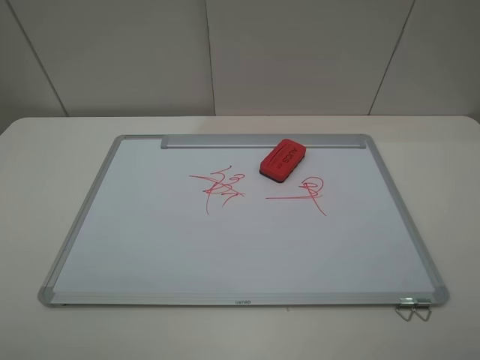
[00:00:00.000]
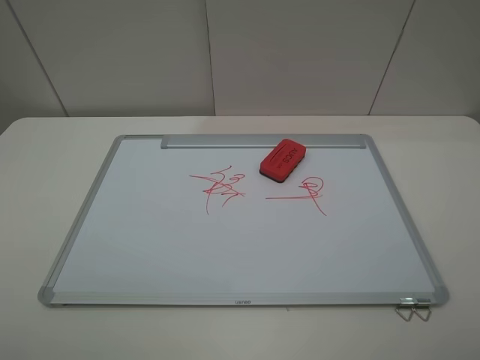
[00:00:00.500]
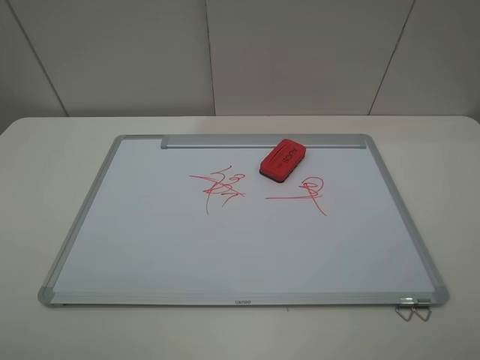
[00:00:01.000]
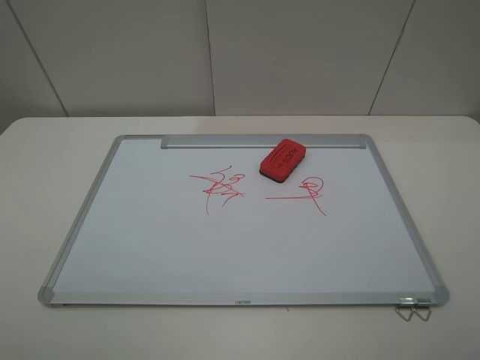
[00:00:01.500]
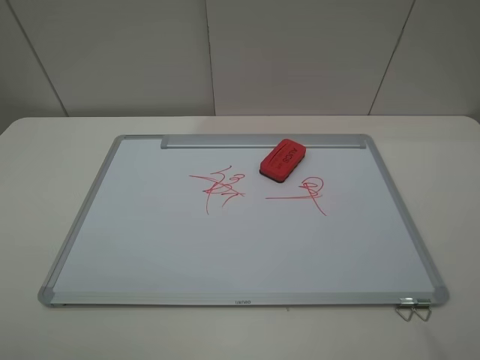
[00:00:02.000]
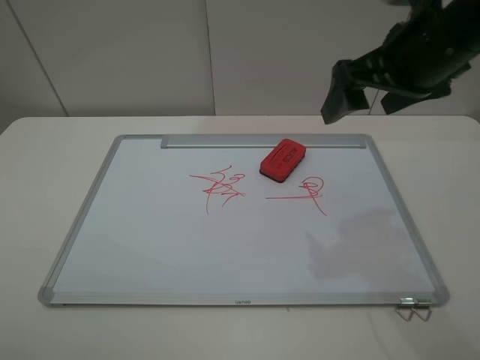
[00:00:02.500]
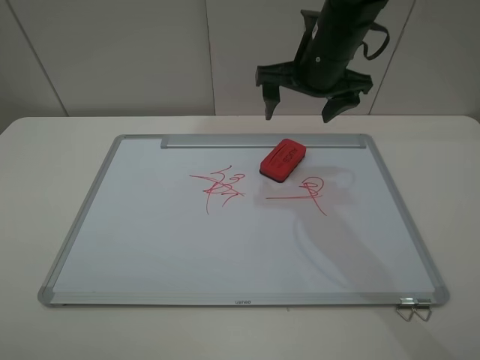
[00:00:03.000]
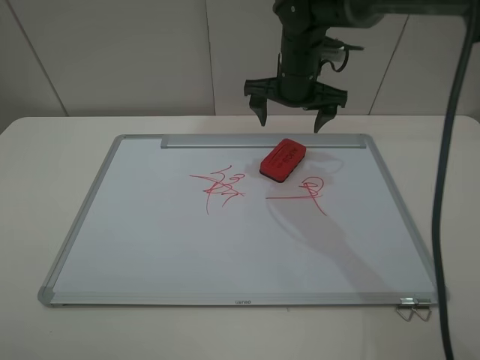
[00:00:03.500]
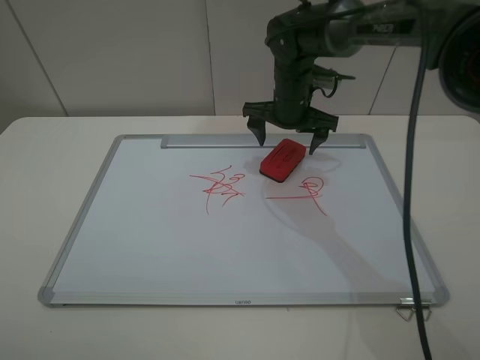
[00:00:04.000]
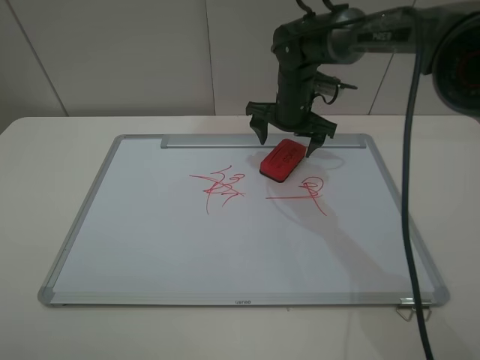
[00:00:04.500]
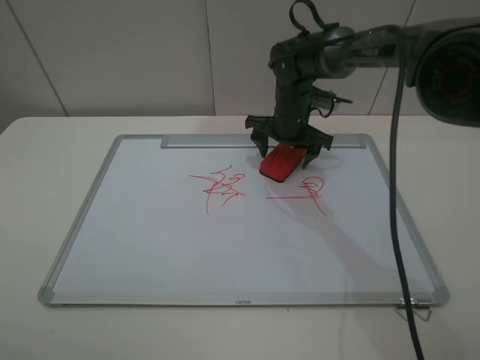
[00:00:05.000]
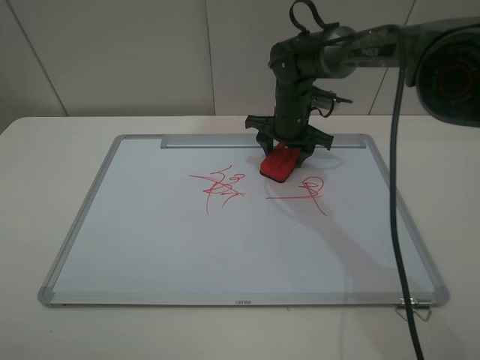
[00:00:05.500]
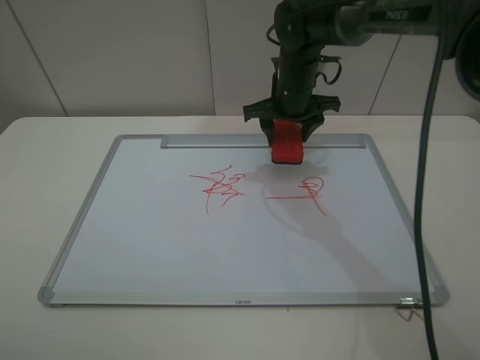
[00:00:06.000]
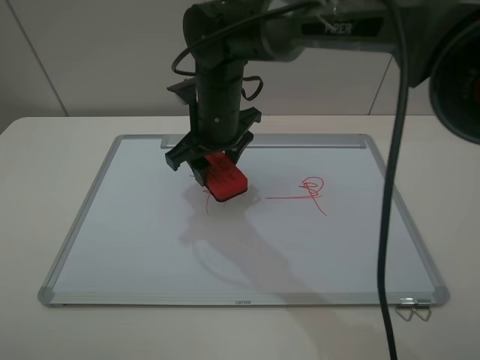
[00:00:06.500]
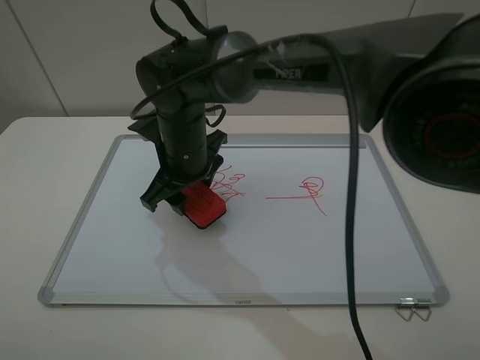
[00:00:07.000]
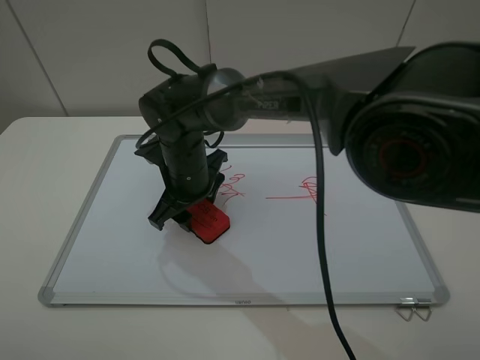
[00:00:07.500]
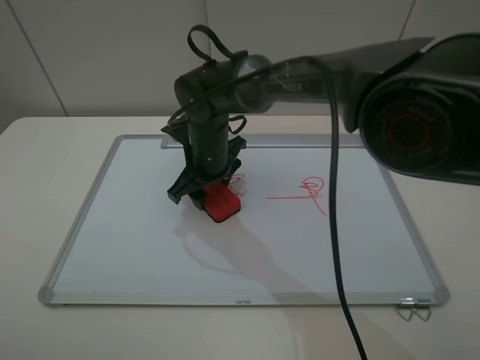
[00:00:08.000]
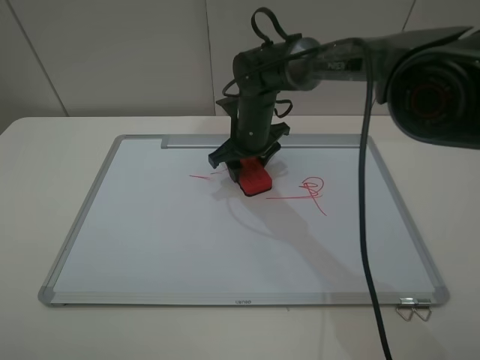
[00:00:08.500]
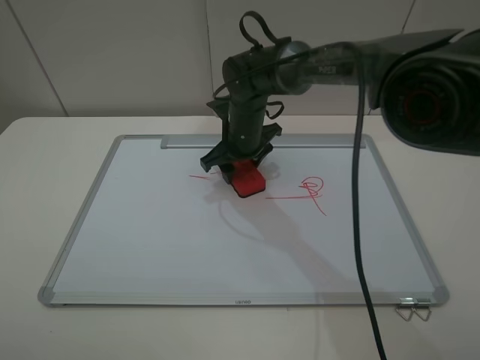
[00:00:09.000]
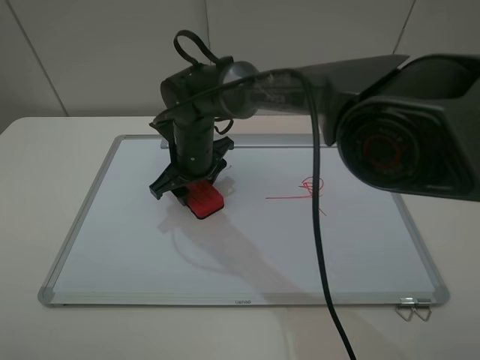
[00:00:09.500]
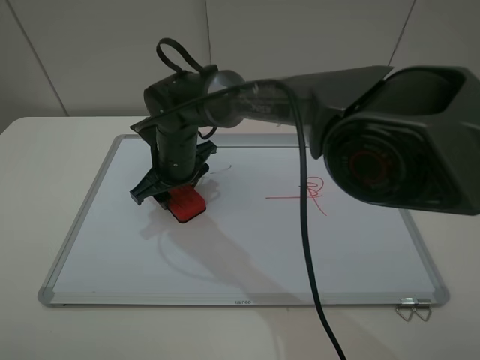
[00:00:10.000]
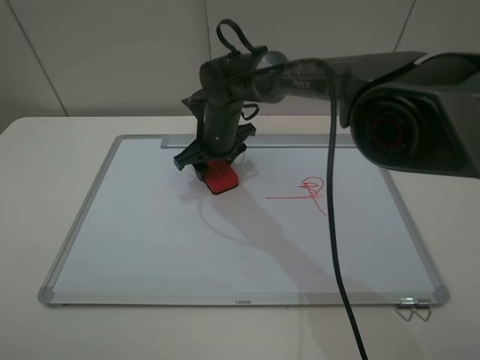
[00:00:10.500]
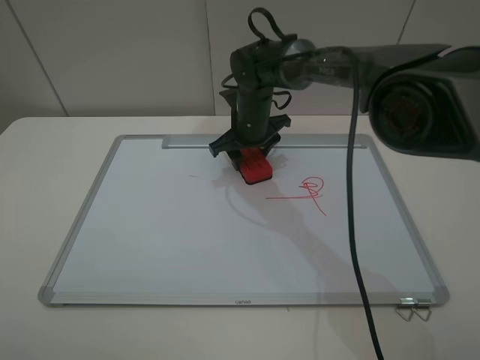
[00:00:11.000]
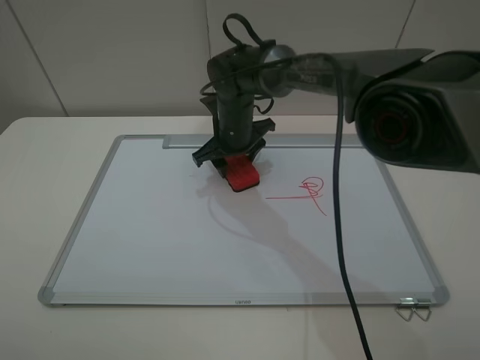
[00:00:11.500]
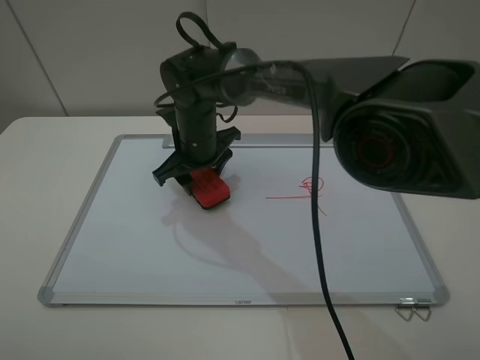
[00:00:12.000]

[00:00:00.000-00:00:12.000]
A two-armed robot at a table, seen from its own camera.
Step, 00:00:00.000 to 00:00:05.000: Grasp the eraser with the right gripper.
Step, 00:00:05.500 to 00:00:12.000: Grasp the eraser and wipe the blackboard with the right gripper.
00:00:02.000 to 00:00:04.000: The right gripper is displaced forward, downward and to the left by roughly 40 cm.
00:00:04.000 to 00:00:06.000: The right gripper closes its fingers.
00:00:06.000 to 00:00:08.000: The right gripper goes roughly 15 cm to the left, downward and backward.
00:00:08.000 to 00:00:10.000: The right gripper shifts approximately 5 cm to the left.
00:00:10.000 to 00:00:12.000: The right gripper moves about 10 cm to the right and comes back.

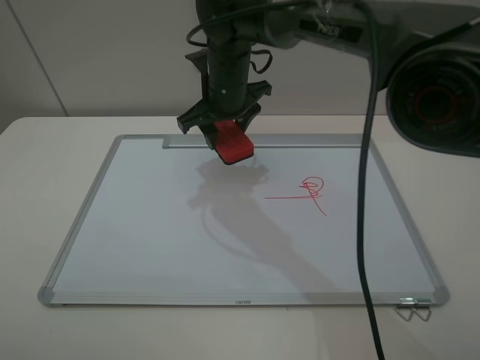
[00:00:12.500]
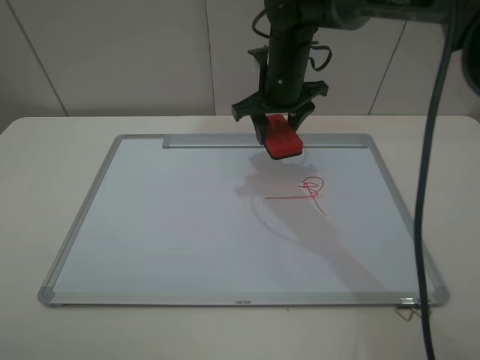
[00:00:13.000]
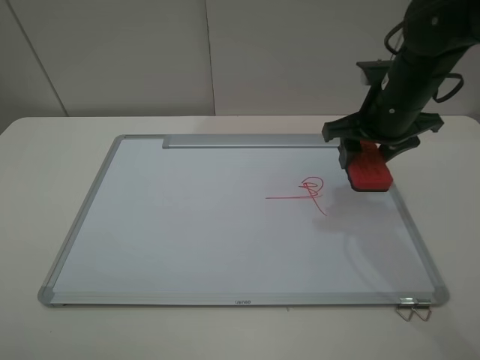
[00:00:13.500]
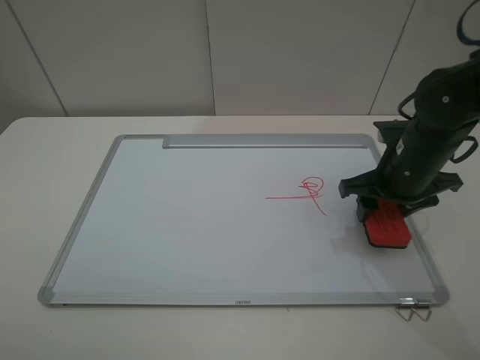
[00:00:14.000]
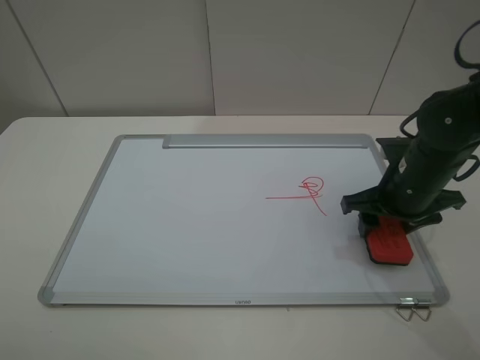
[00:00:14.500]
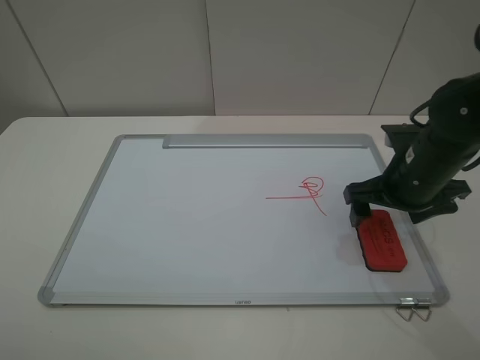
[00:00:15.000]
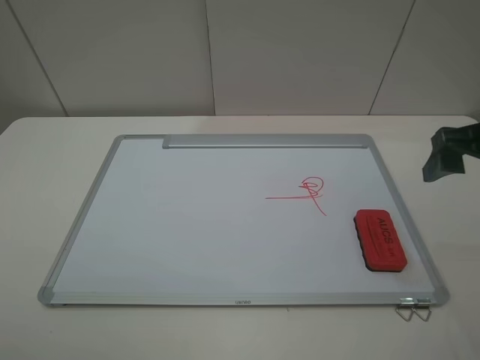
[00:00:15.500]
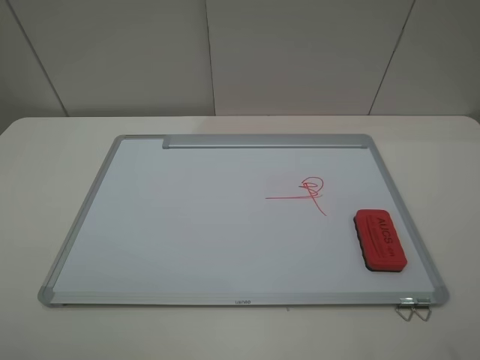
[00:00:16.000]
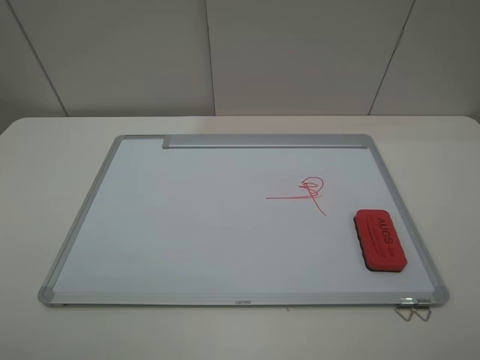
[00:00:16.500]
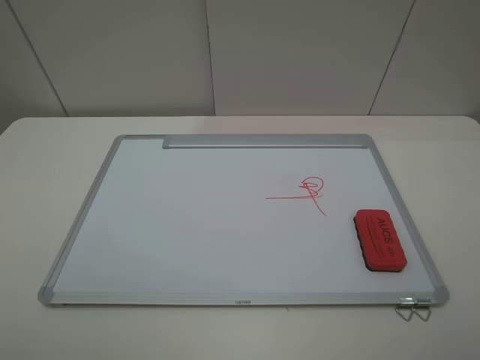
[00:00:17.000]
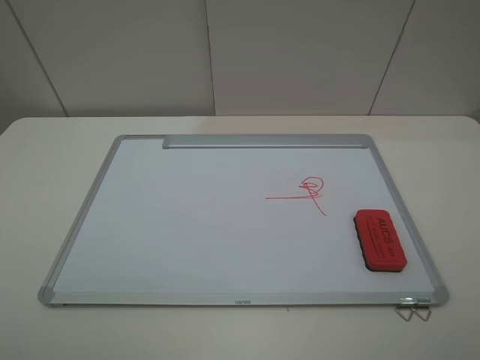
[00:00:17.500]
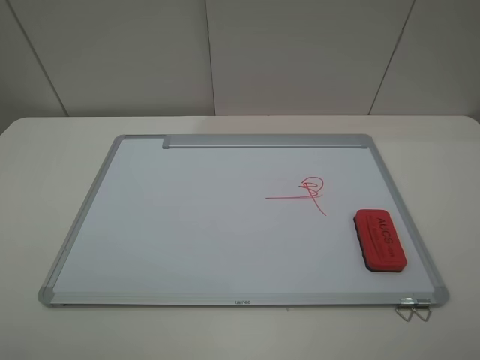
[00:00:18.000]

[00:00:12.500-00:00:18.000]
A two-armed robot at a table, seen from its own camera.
Step, 00:00:12.500 to 00:00:15.000: Place the eraser with the right gripper.
00:00:12.500 to 00:00:14.500: The right gripper goes about 30 cm to the right and backward.
00:00:14.500 to 00:00:16.000: The right gripper goes about 30 cm upward and backward, and opens its fingers.

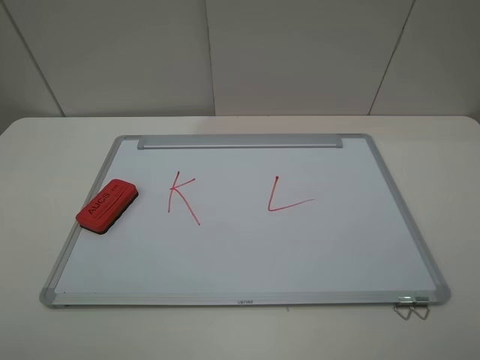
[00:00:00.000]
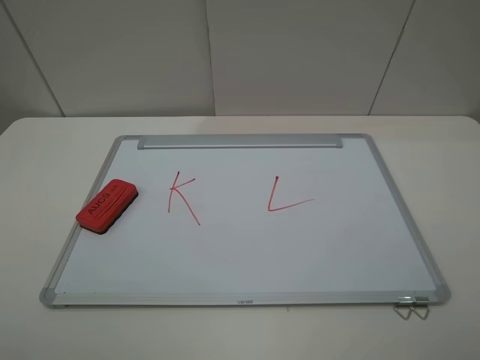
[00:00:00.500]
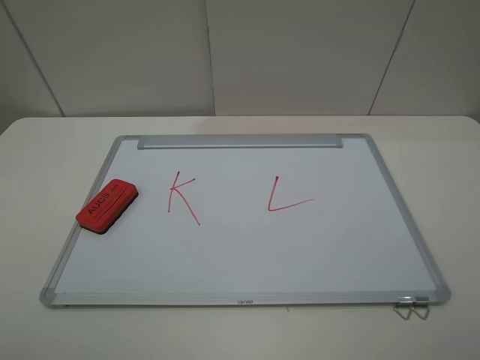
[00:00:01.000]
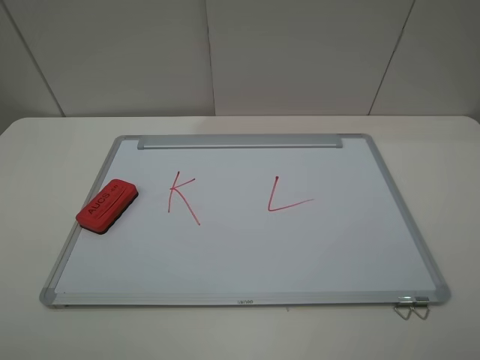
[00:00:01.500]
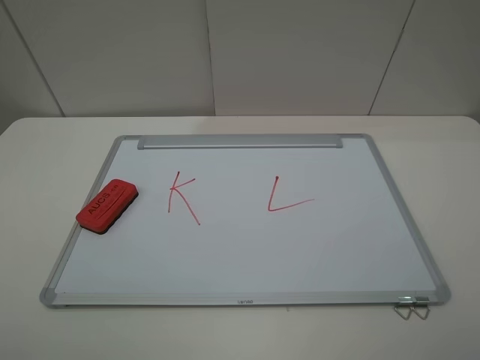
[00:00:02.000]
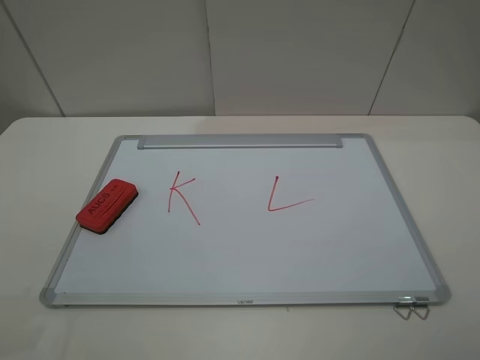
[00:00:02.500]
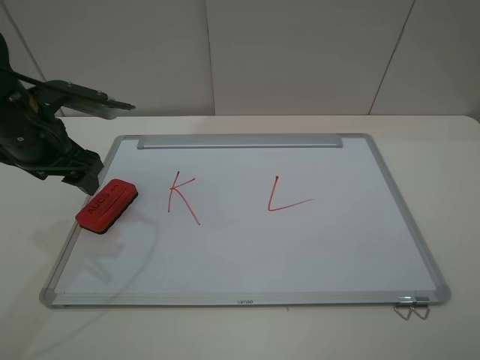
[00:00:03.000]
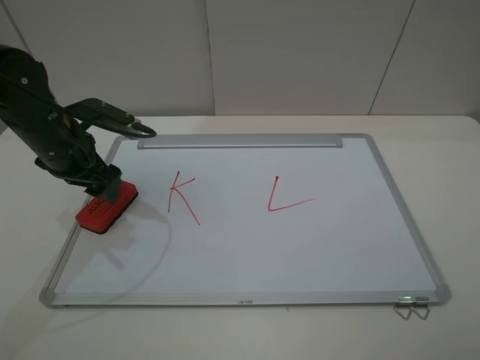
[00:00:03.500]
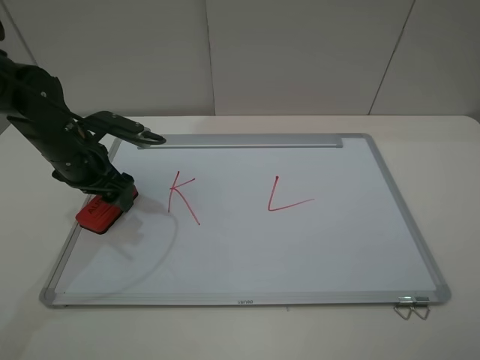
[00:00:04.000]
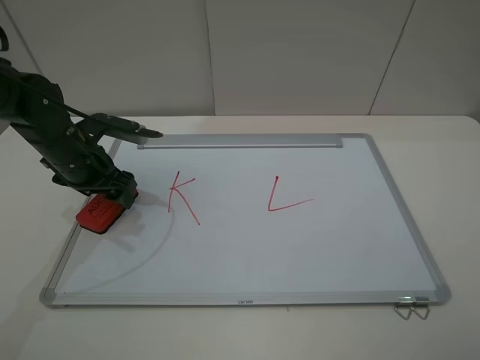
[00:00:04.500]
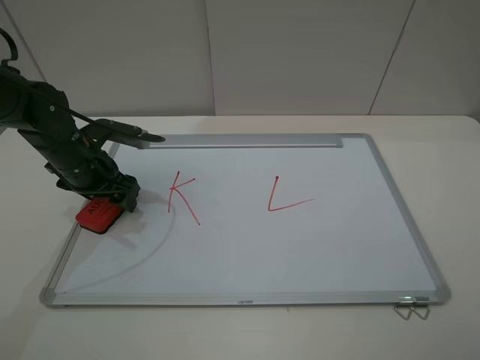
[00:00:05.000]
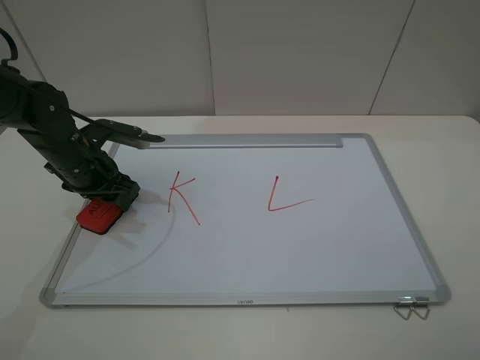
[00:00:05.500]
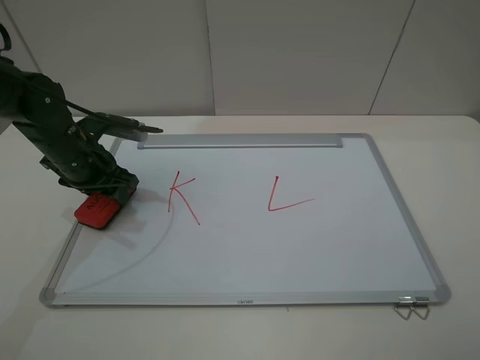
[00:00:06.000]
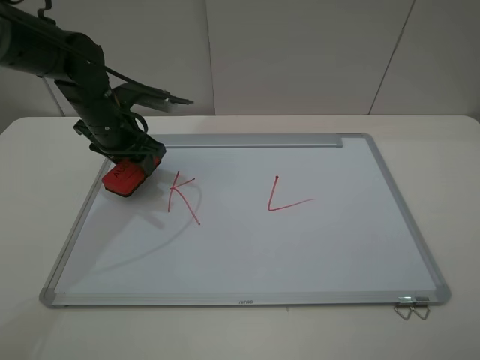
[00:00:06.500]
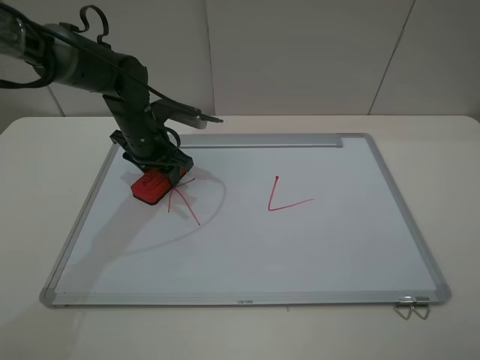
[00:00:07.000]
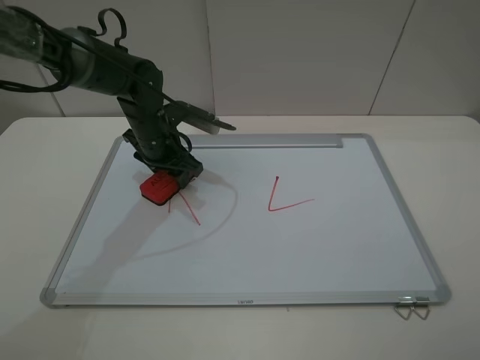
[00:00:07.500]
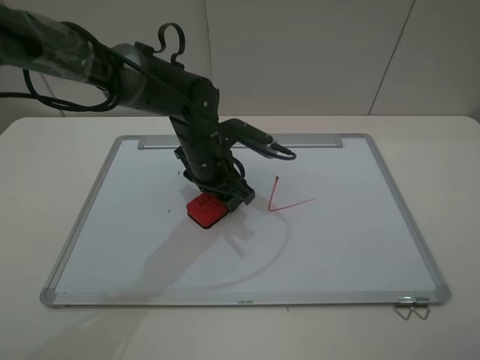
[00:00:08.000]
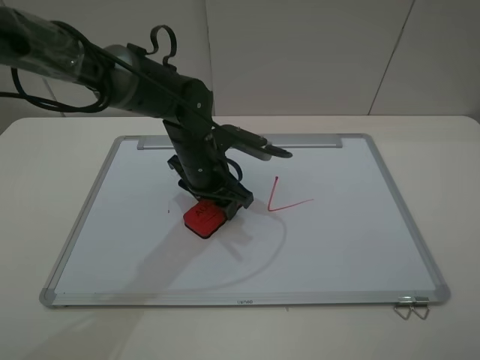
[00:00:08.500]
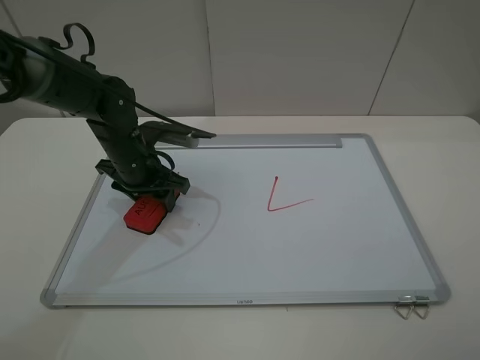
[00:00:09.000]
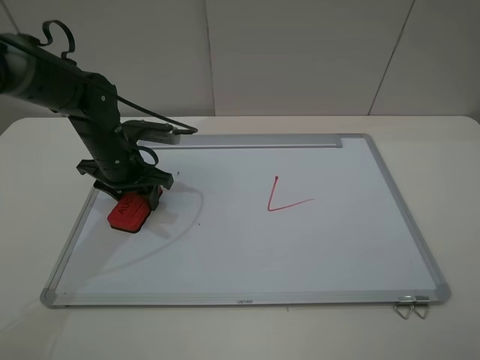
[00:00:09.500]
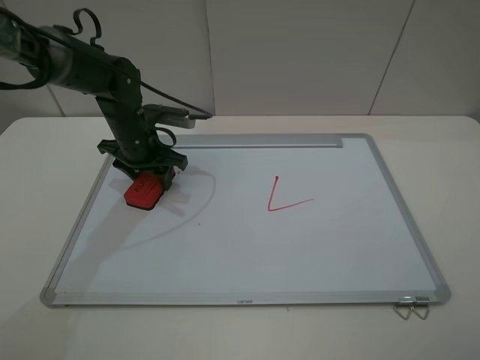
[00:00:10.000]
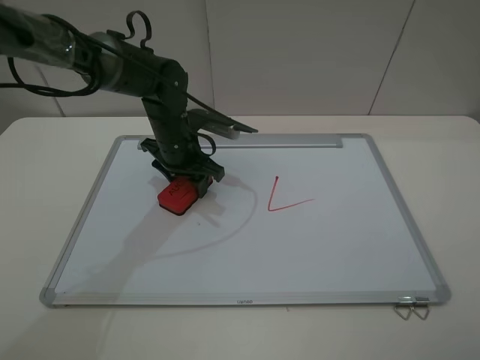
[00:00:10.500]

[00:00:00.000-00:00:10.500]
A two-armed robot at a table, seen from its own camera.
Step, 00:00:00.000 to 00:00:05.000: Grasp the eraser with the left gripper.
00:00:00.000 to 00:00:02.000: Neither gripper changes place.
00:00:02.000 to 00:00:04.000: The left gripper moves forward and downward, approximately 35 cm, and opens up.
00:00:04.000 to 00:00:06.500: The left gripper goes approximately 5 cm forward, and closes its fingers.
00:00:06.500 to 00:00:08.500: The left gripper moves to the right and backward, about 15 cm.
00:00:08.500 to 00:00:10.500: The left gripper reaches roughly 10 cm to the left, then returns.
